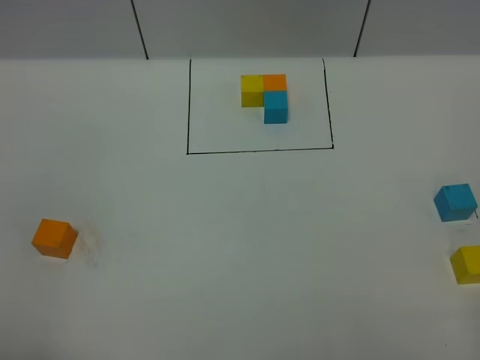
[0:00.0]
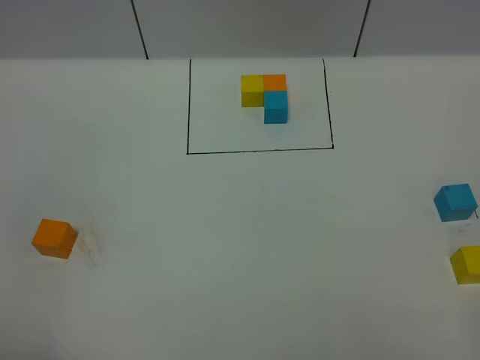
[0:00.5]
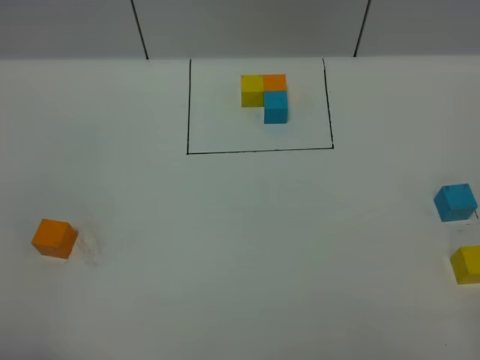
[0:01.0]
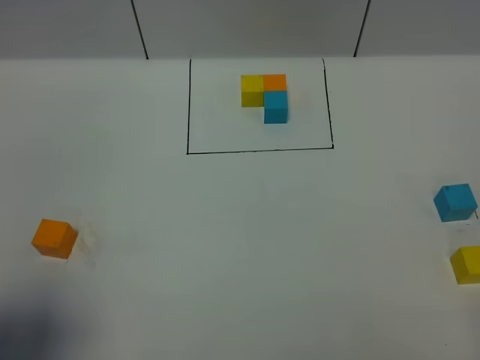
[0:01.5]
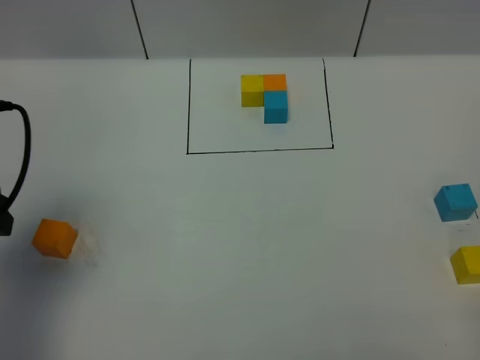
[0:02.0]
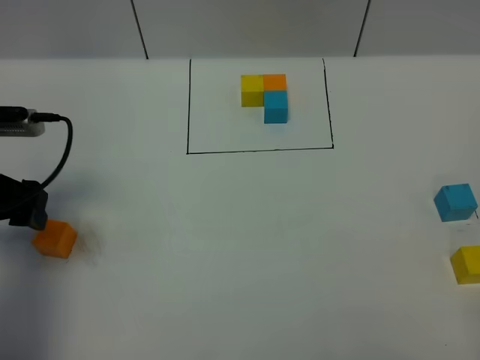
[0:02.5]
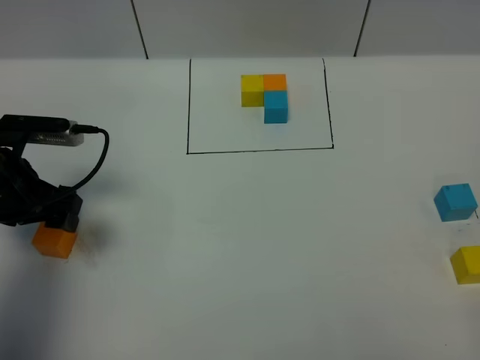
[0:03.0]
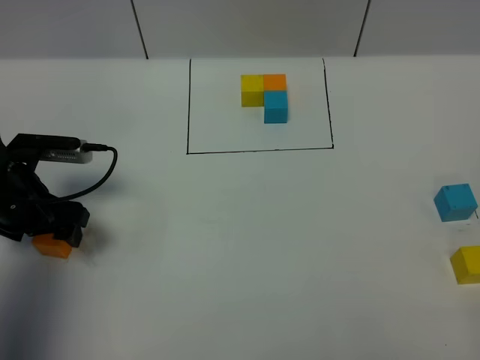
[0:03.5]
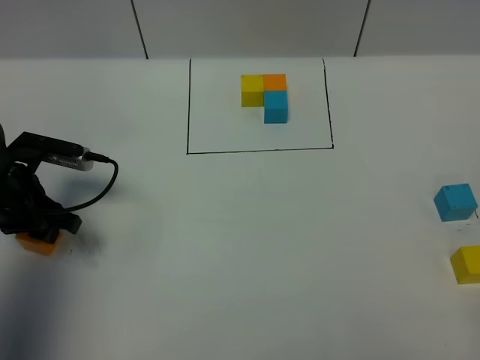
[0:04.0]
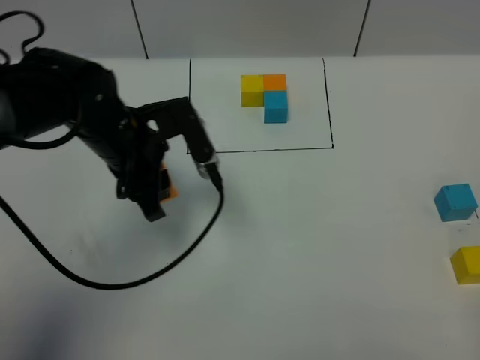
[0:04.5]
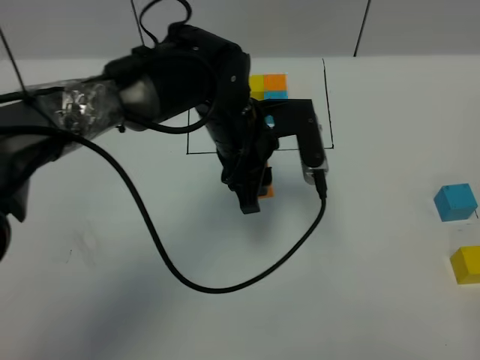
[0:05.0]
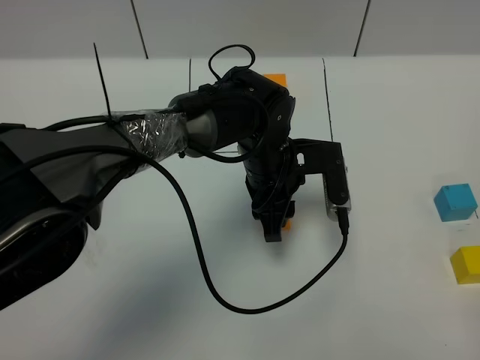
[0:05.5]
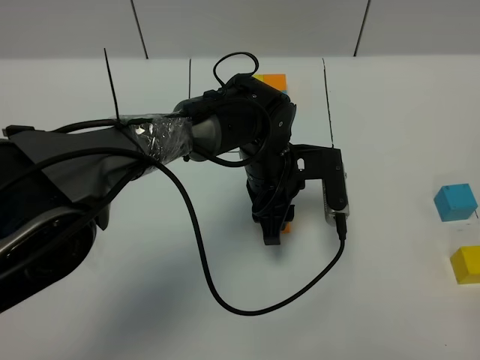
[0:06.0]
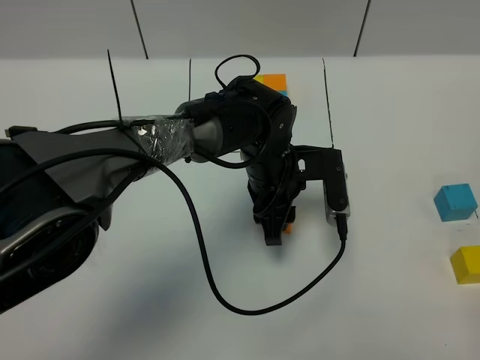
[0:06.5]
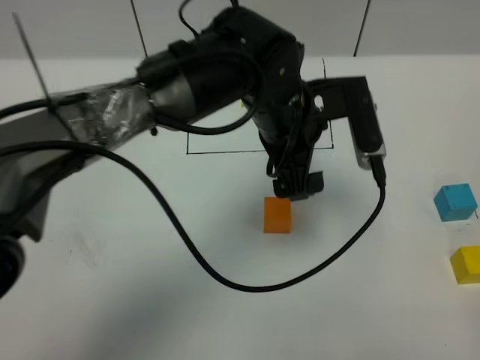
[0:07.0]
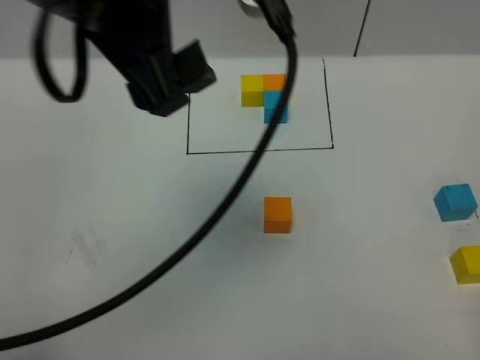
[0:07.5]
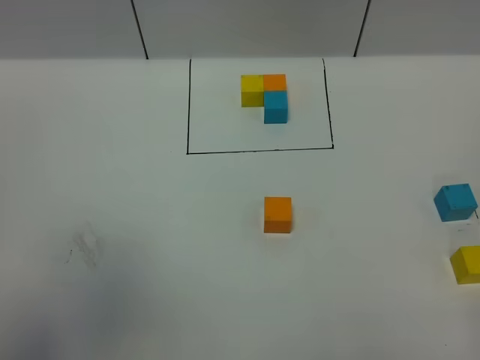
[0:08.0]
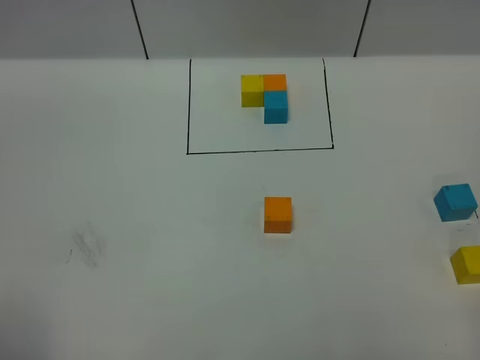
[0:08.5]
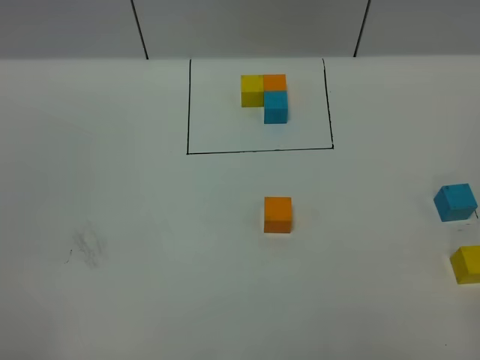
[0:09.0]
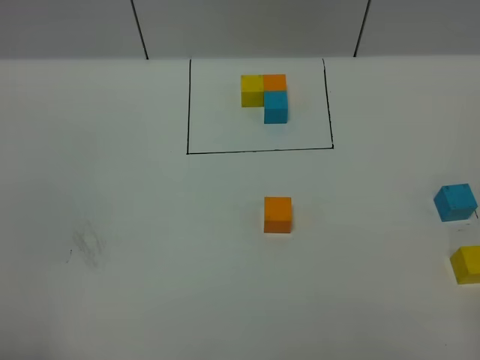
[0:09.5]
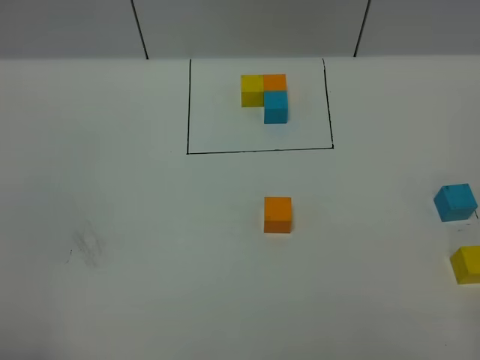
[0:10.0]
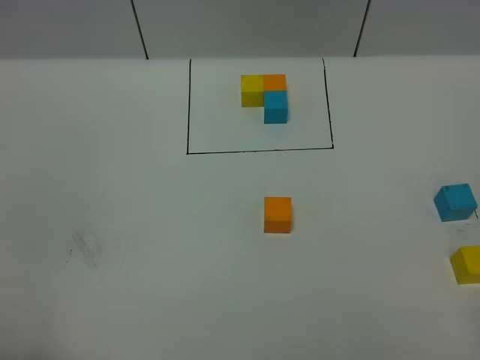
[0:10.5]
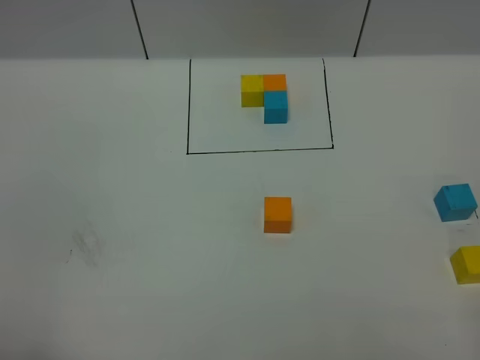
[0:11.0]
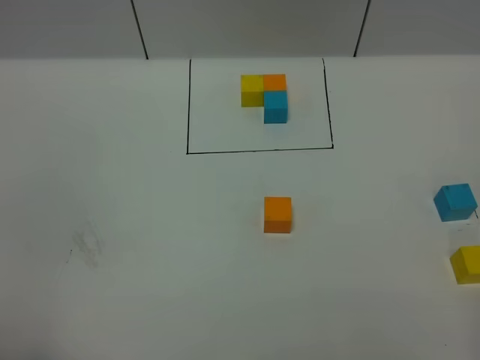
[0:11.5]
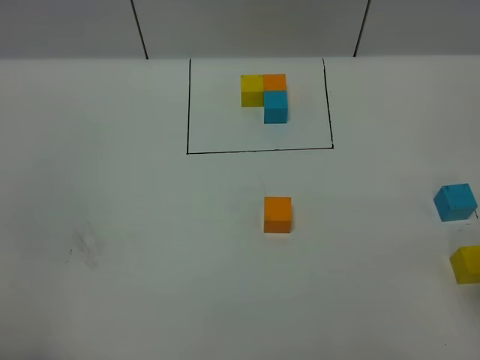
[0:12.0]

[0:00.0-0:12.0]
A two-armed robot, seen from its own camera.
Task of the whole recording: According to the building block template in front, assemble the scattered blocks together.
Step, 0:02.0 to 0:07.0: Put the orange cube in the center of the table.
0:00.0 to 0:02.0: The left gripper moves forward, some 20 cm.
0:02.0 to 0:04.0: The left gripper travels downward and forward by approximately 15 cm, and closes its fingers.
0:04.0 to 0:06.0: The left gripper moves to the right, roughly 30 cm.
0:06.0 to 0:08.0: The left gripper shifts some 50 cm upward, to the left and backward, and opens its fingers.
0:08.0 to 0:10.0: The left gripper heads downward and backward, covering about 25 cm.

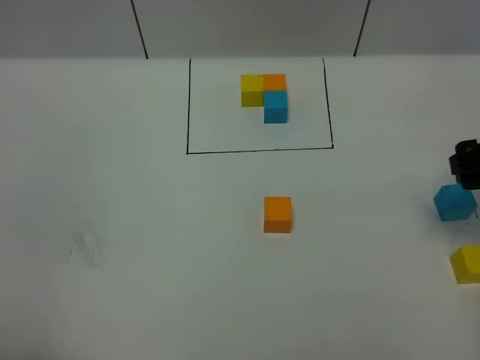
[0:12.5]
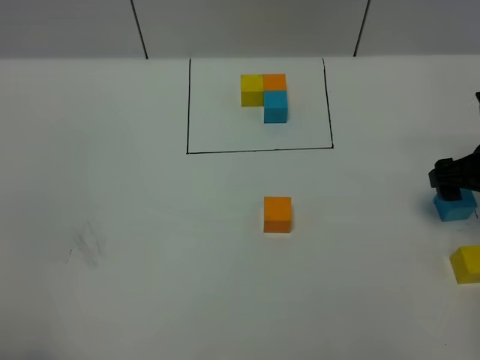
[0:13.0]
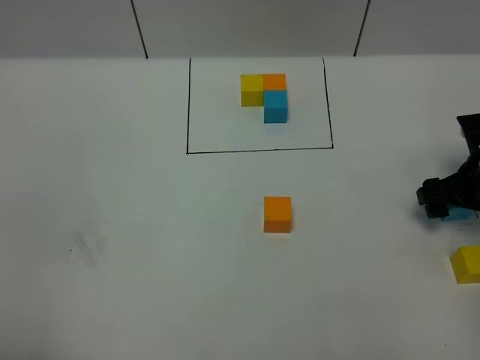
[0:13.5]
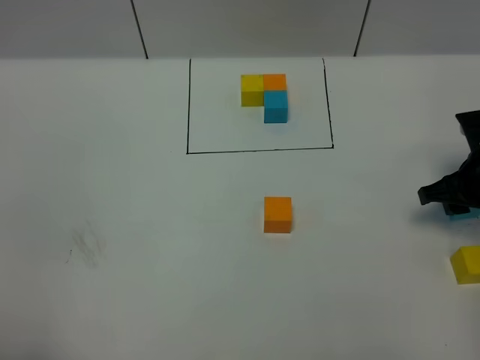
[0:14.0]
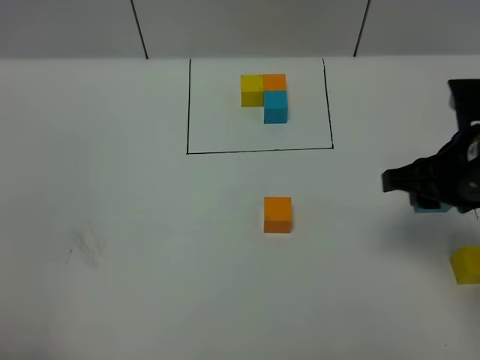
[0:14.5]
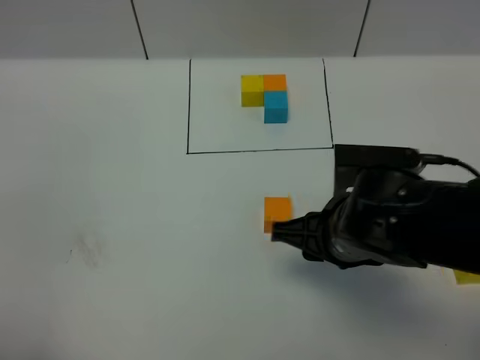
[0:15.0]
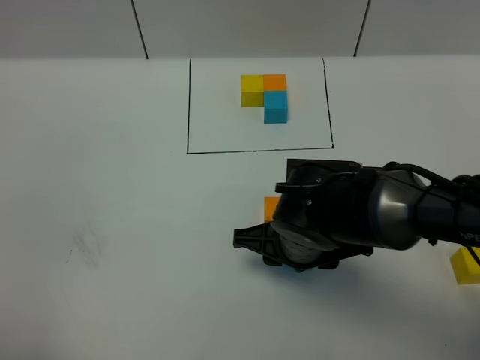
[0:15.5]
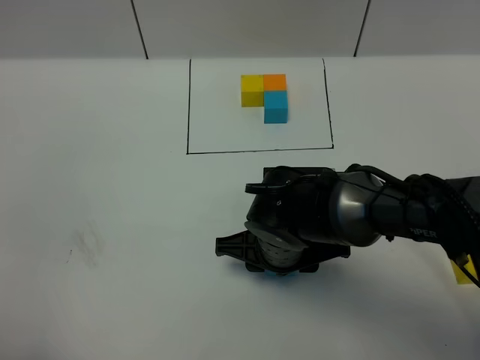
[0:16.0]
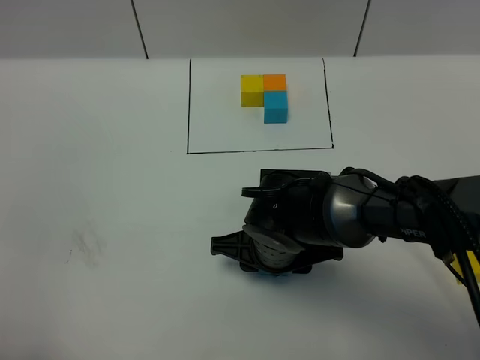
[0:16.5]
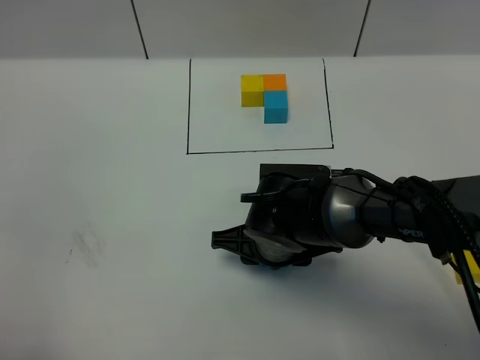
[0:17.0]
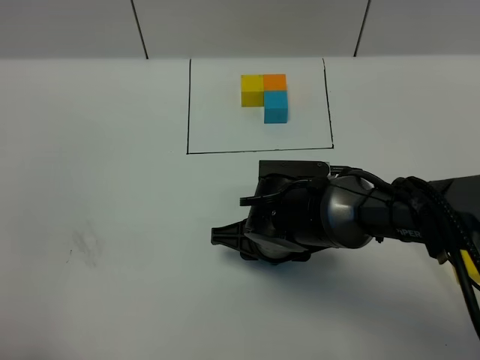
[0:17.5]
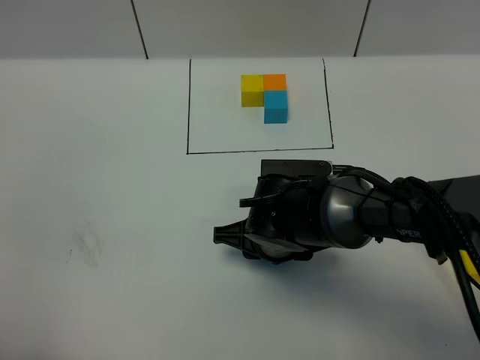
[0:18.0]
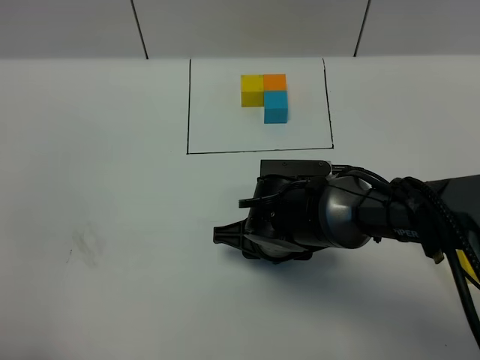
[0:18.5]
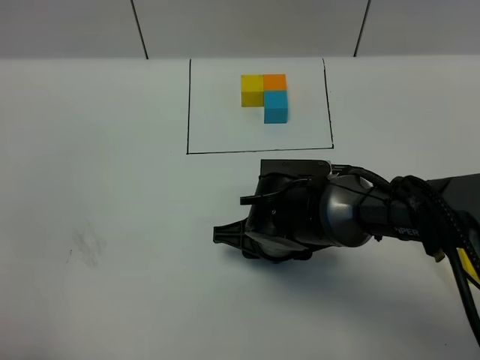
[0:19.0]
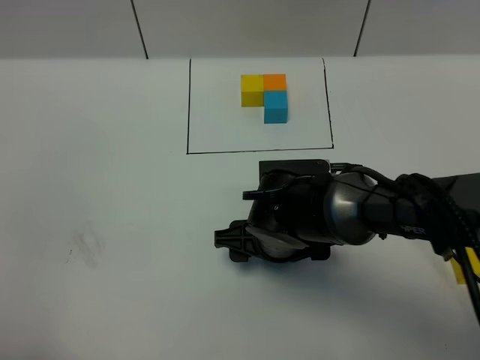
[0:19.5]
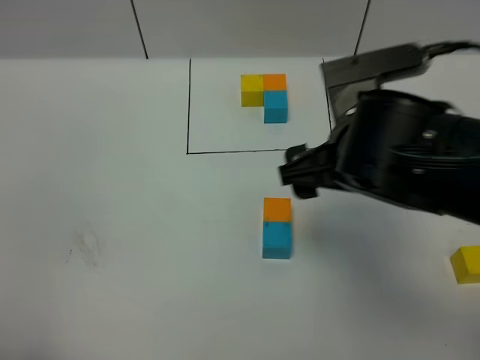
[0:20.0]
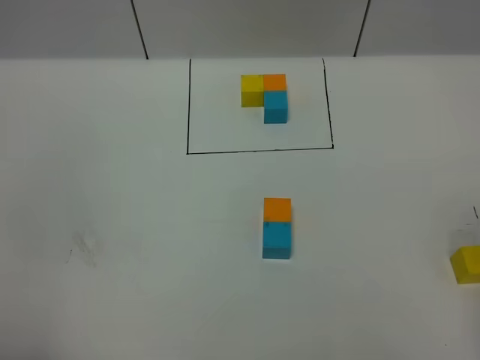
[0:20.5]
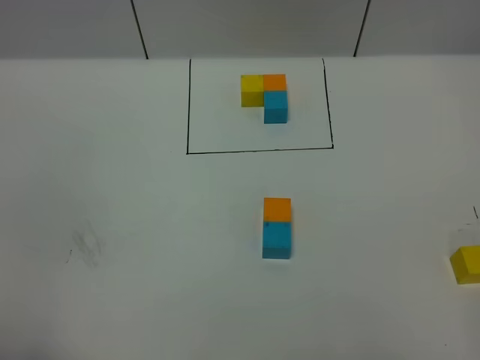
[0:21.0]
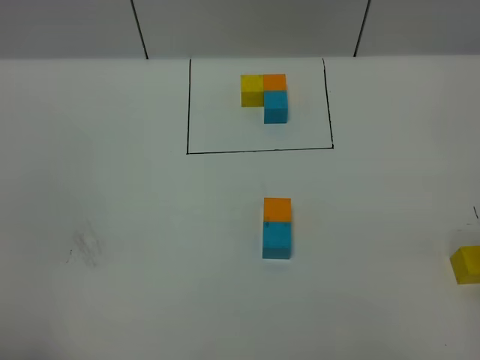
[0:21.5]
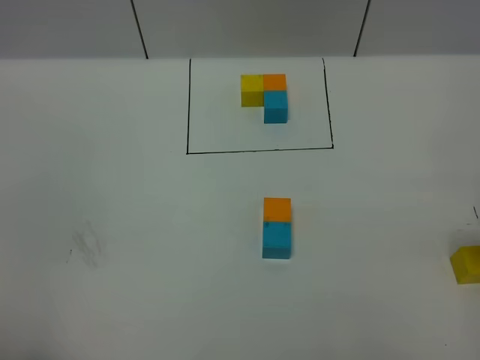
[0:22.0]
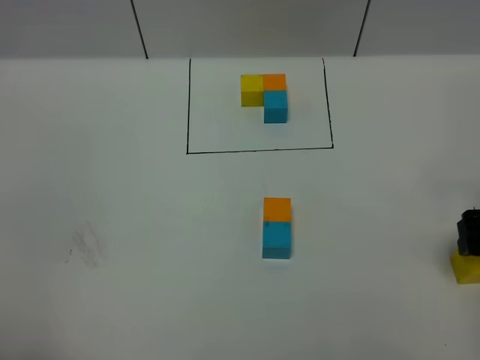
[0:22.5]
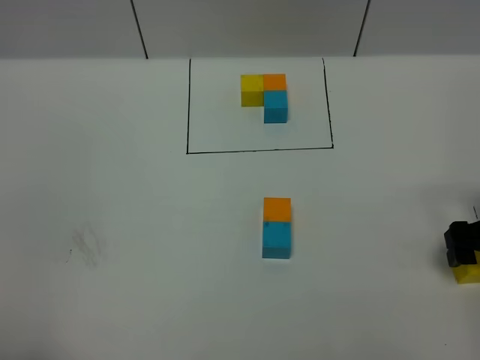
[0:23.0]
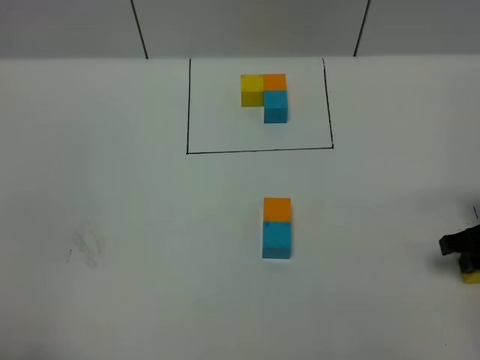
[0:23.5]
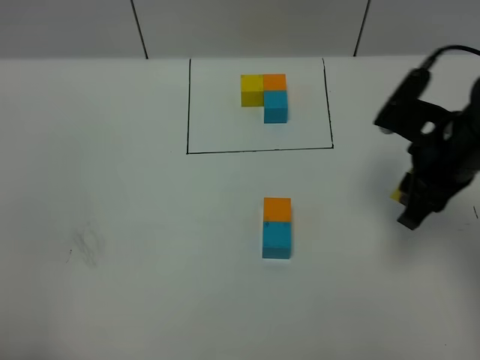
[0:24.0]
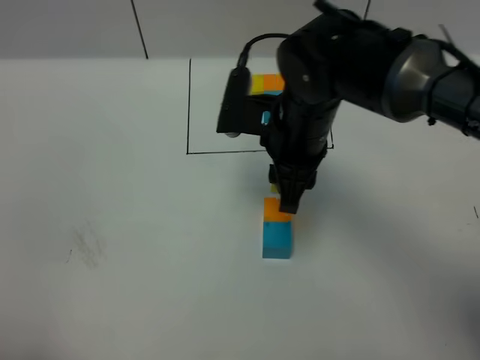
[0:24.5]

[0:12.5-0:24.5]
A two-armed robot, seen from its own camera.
Task of the whole recording: According to the building block template in front, assemble the scattered blocks together.
Step, 0:12.5 to 0:20.0: Put the blue cube on the behind of the orange cube.
0:12.5 to 0:14.5: The right gripper is displaced to the left by about 10 cm, moves about 10 cm downward and comes back, and closes up.
0:14.5 to 0:16.5: The right gripper is displaced to the left and downward by roughly 20 cm.
0:16.5 to 0:18.5: The grippers make only small movements.
0:18.5 to 0:20.5: The right gripper goes approximately 40 cm upward and to the right, and opens up.
0:20.5 to 0:22.5: The right gripper heads downward, covering approximately 25 cm.
0:22.5 to 0:24.5: The right gripper shifts some 25 cm to the left, and closes its fingers.

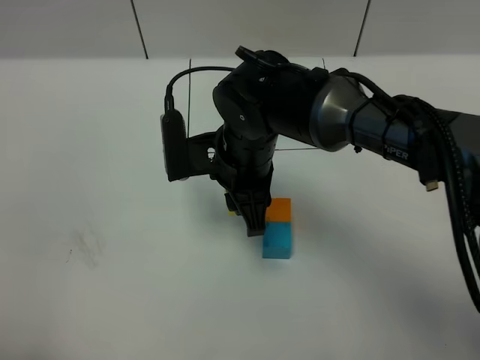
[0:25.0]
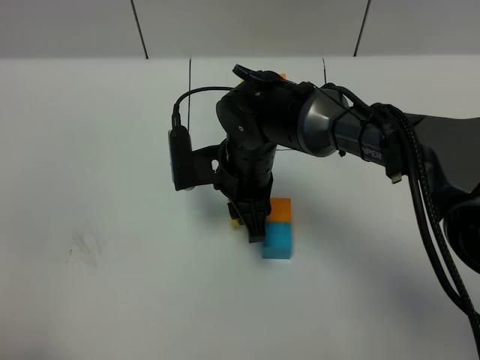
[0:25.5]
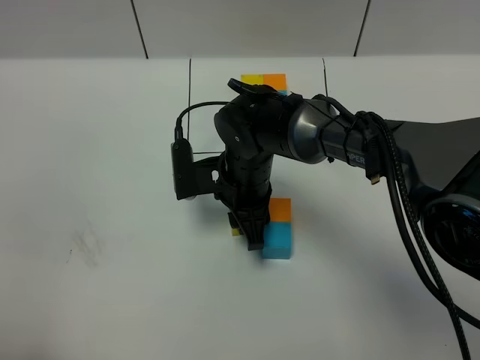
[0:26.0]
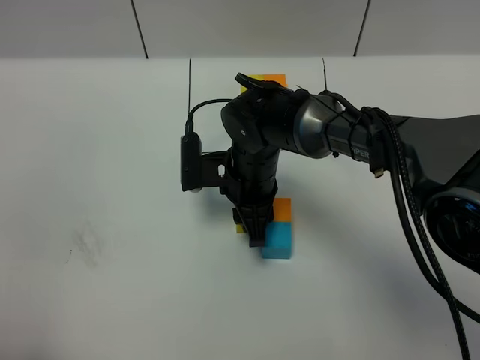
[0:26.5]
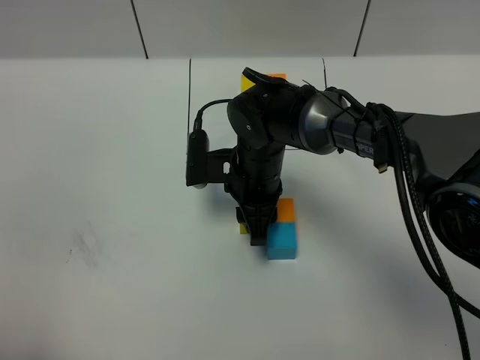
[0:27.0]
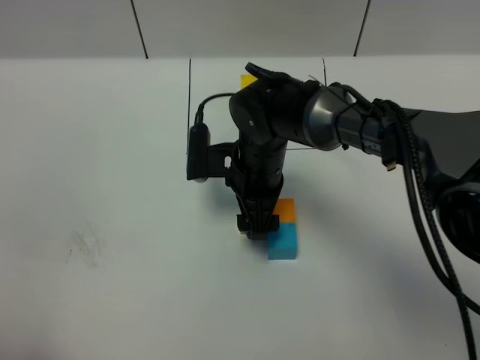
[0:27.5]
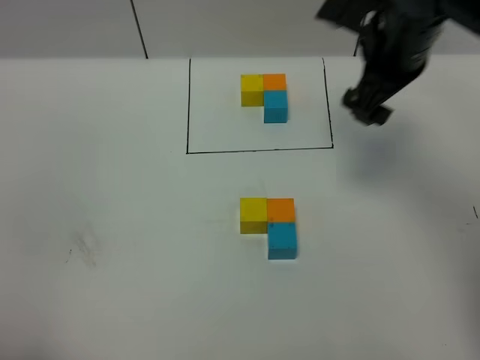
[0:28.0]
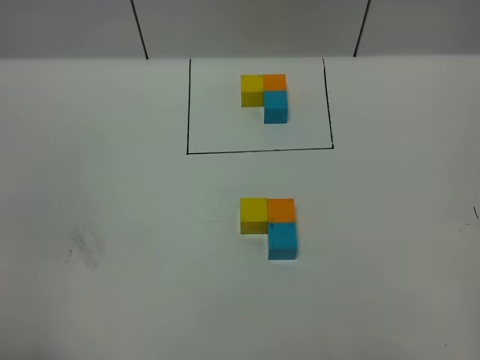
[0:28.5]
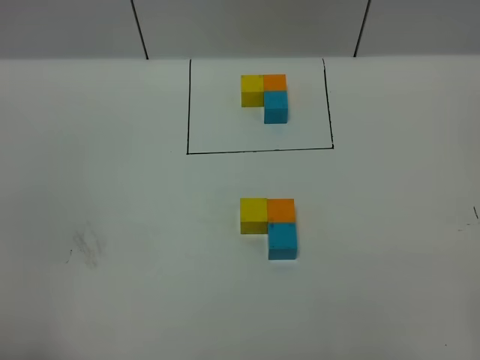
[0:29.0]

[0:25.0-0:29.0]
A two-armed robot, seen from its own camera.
Task of the whole recording: According to the building block template in front, assemble the scattered blocks together.
0:25.0 to 0:27.0: The right gripper goes approximately 5 cm downward.
0:27.0 to 0:29.0: The right gripper moves backward, to the right and upward, approximately 50 cm, and opens.
